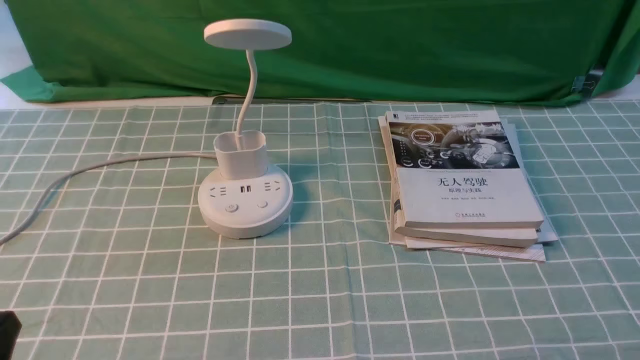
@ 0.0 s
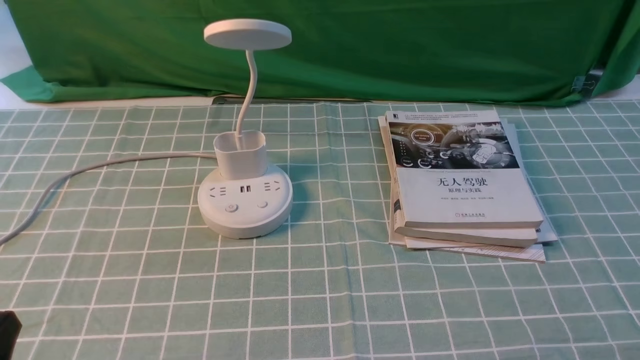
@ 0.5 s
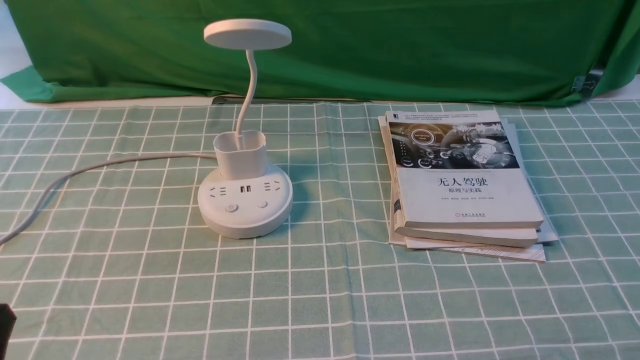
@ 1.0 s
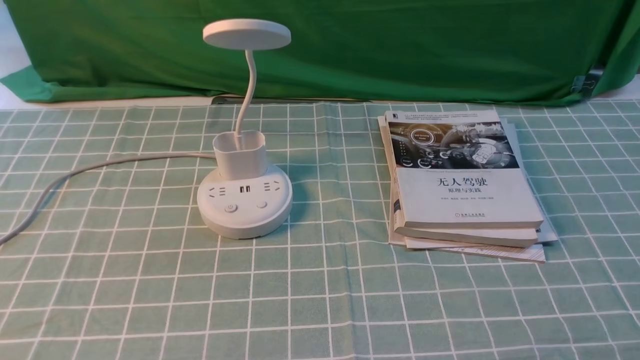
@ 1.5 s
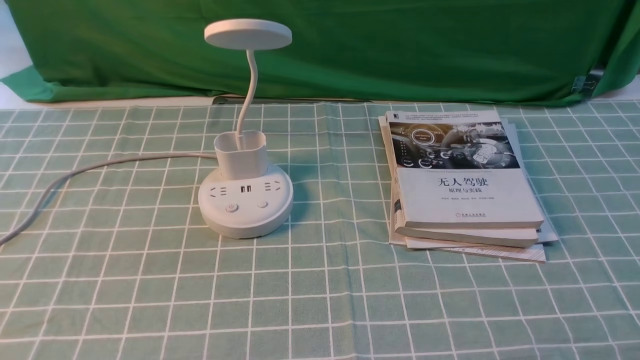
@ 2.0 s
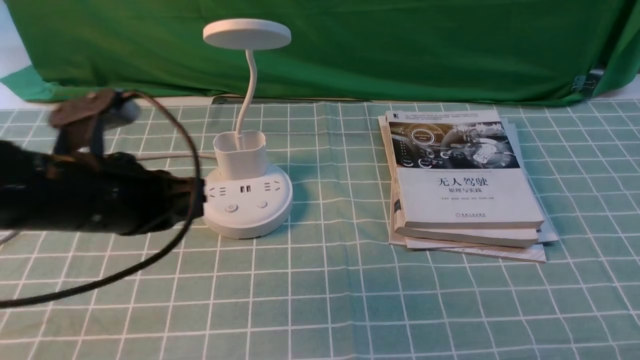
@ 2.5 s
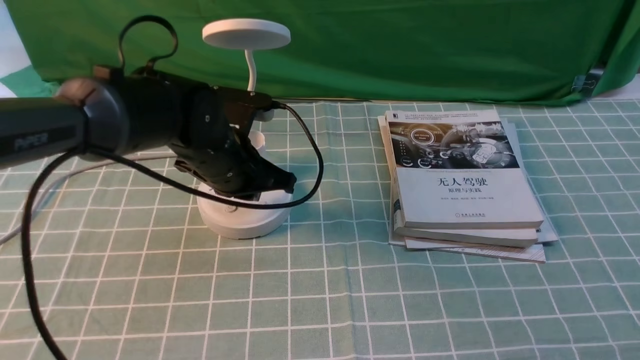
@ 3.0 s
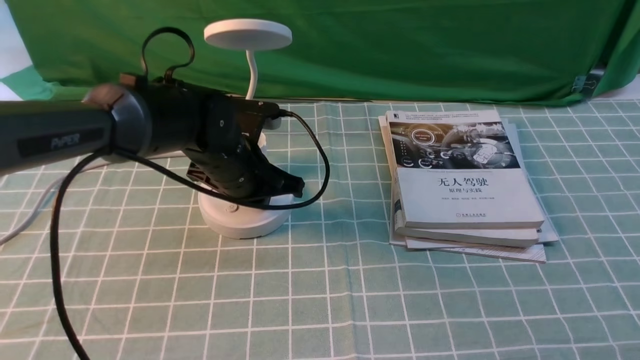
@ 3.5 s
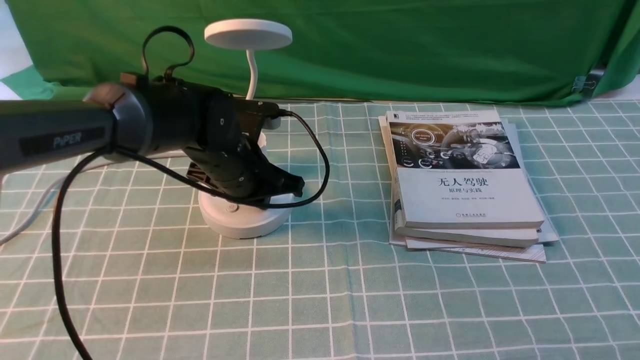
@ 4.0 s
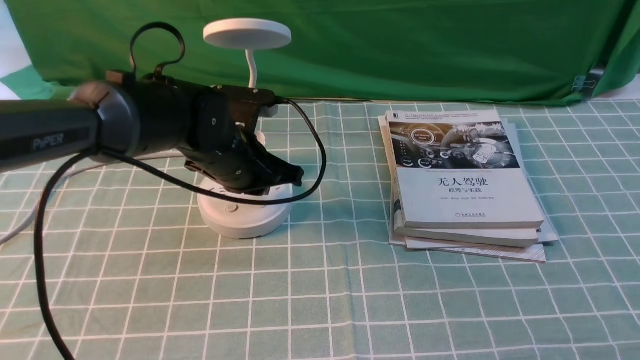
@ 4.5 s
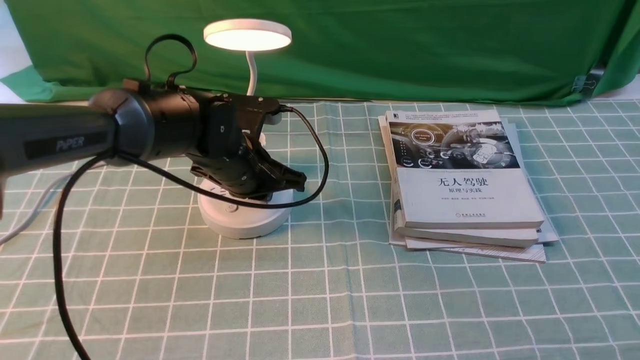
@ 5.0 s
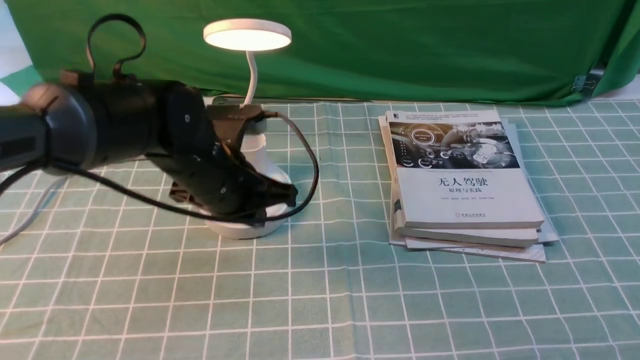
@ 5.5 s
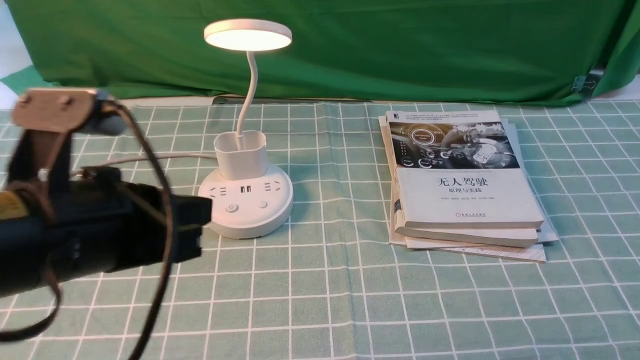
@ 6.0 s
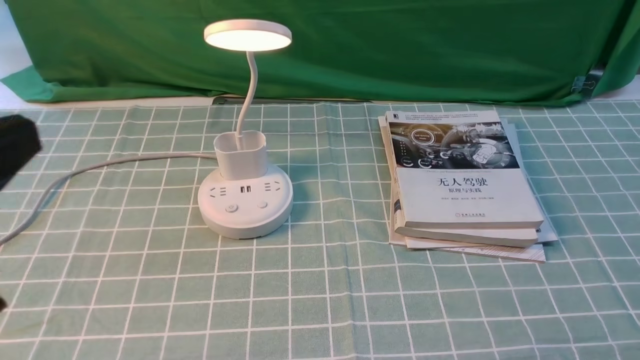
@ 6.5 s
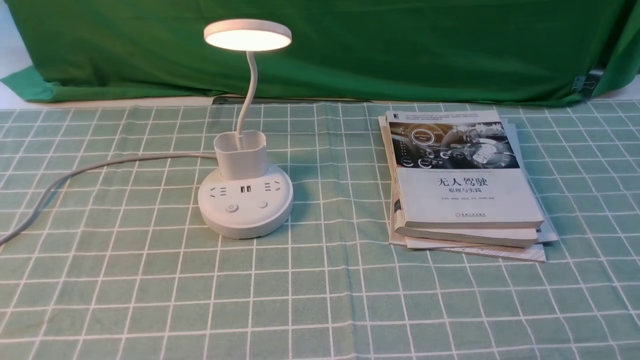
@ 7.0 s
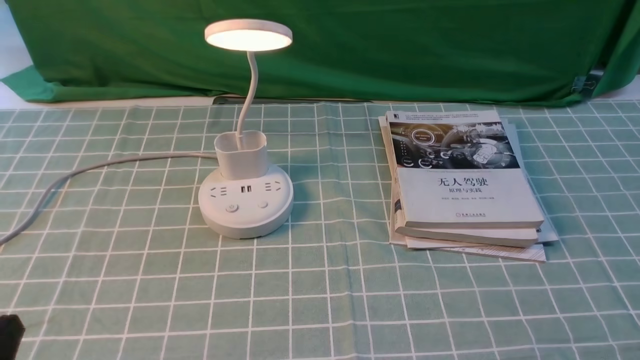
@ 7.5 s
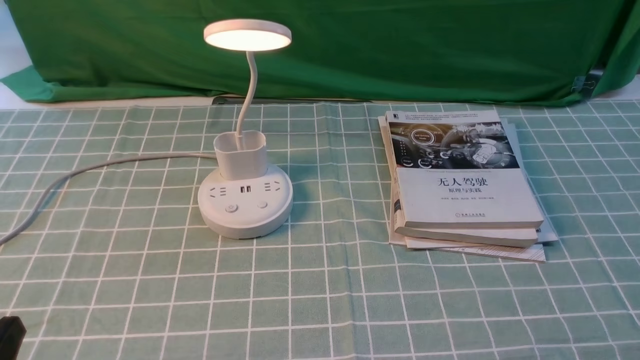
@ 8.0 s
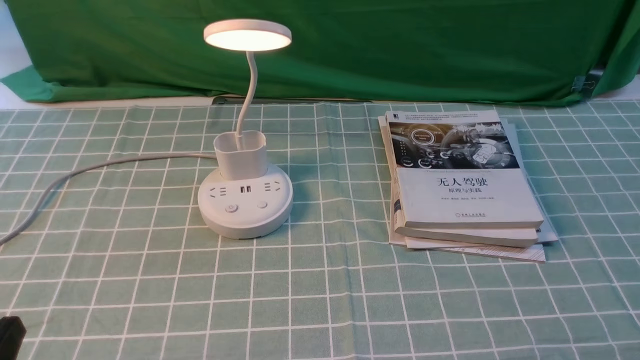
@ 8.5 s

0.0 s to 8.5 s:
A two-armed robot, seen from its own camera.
Step, 0.0 to 5.0 s: use the left arm to press the button switch on the lamp holder.
2.0 to 4.0 s: The left gripper moves forward, downward and to the right, roughly 40 cm, and closes up.
4.0 to 6.5 s: The left gripper moves backward, upward and to the left, about 35 cm.
6.5 to 8.5 s: The left gripper moves downward, some 15 cm.
